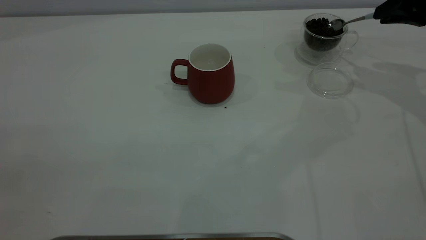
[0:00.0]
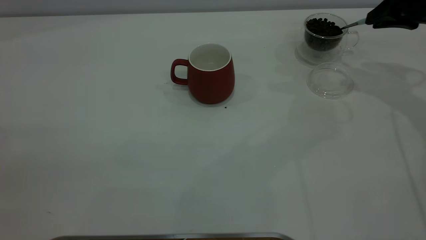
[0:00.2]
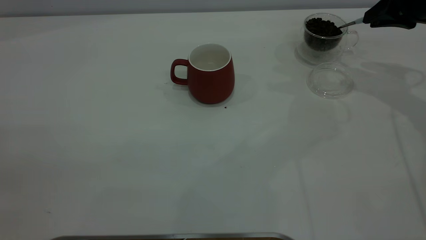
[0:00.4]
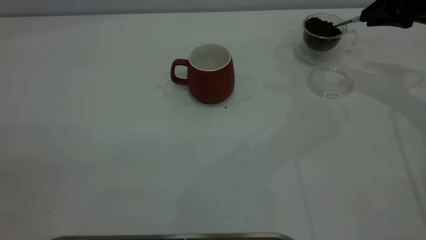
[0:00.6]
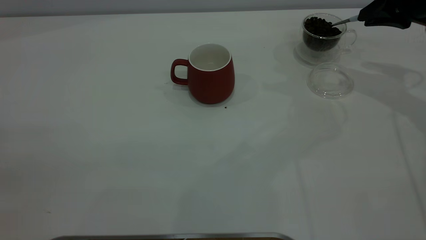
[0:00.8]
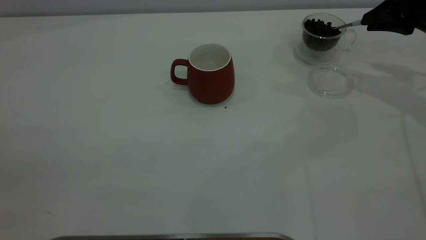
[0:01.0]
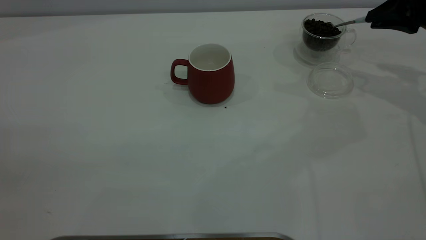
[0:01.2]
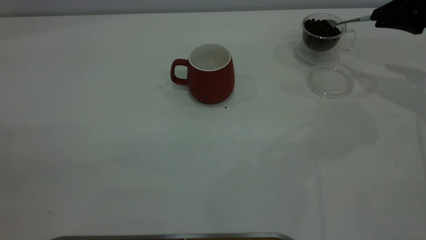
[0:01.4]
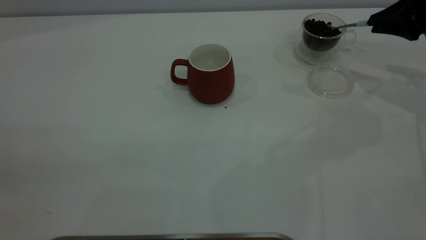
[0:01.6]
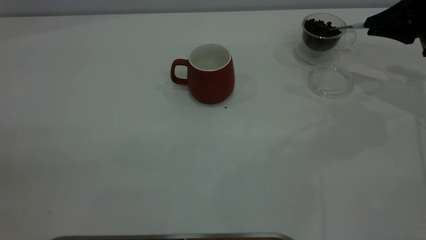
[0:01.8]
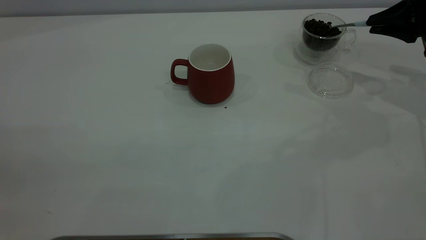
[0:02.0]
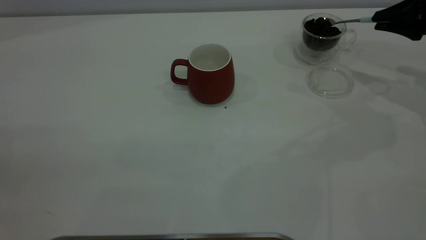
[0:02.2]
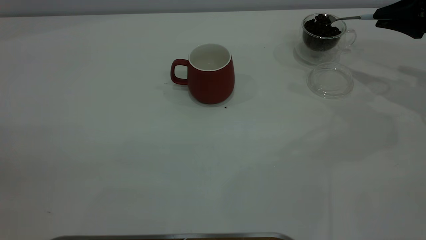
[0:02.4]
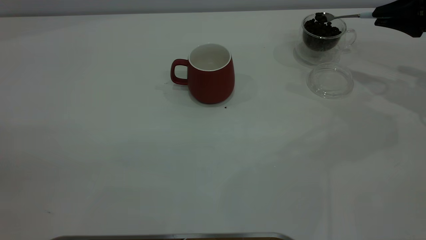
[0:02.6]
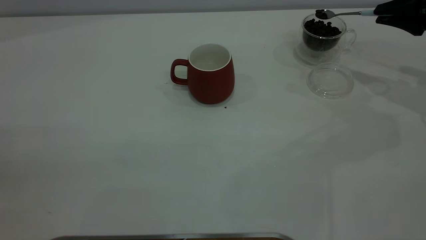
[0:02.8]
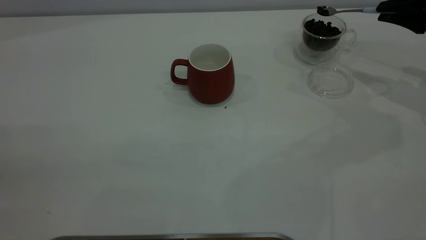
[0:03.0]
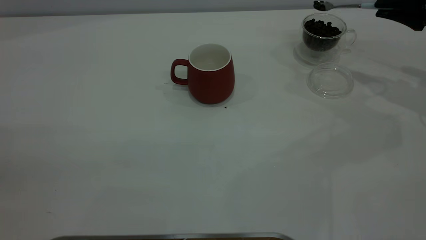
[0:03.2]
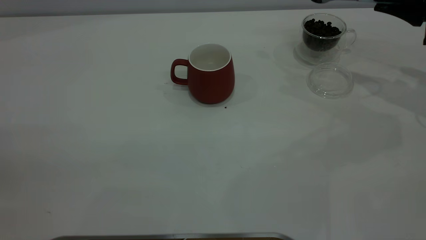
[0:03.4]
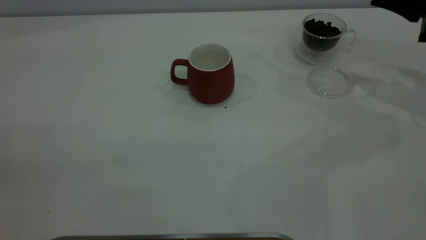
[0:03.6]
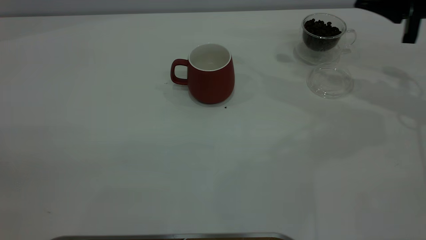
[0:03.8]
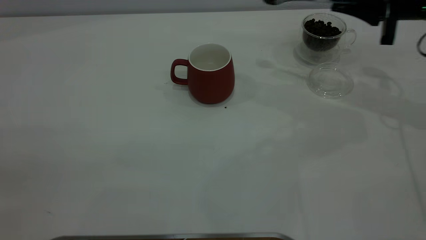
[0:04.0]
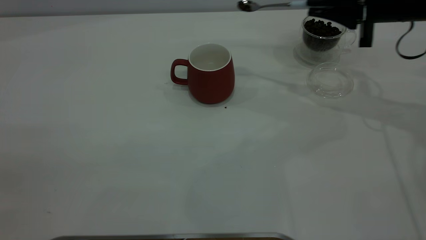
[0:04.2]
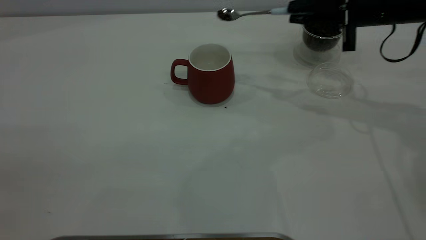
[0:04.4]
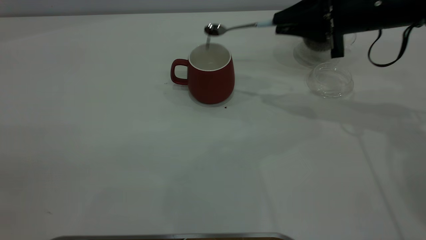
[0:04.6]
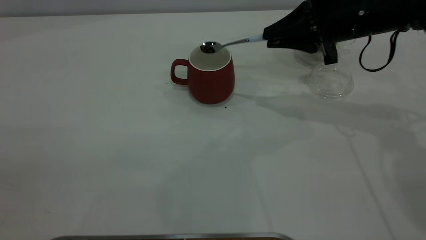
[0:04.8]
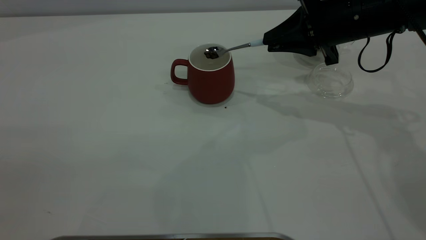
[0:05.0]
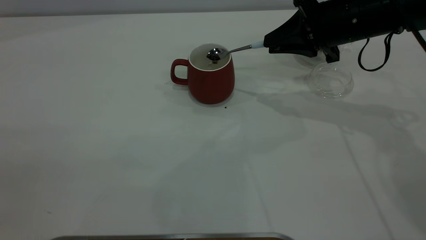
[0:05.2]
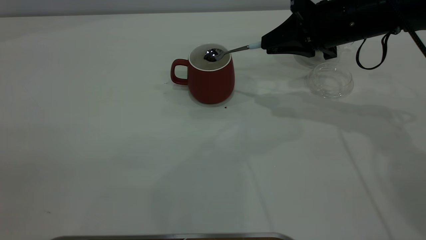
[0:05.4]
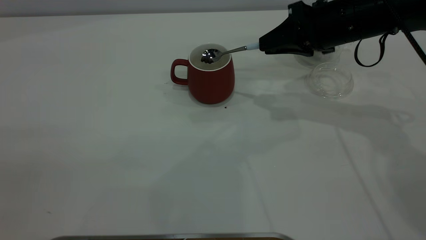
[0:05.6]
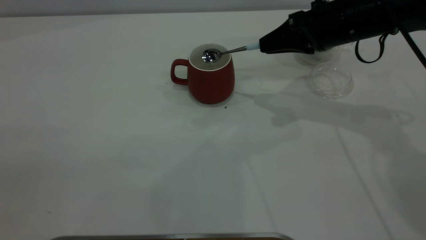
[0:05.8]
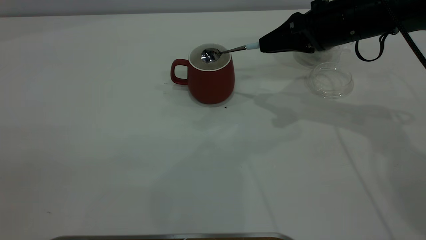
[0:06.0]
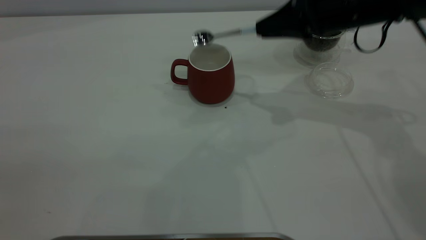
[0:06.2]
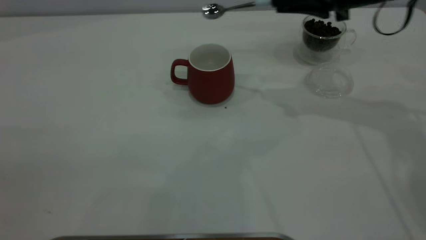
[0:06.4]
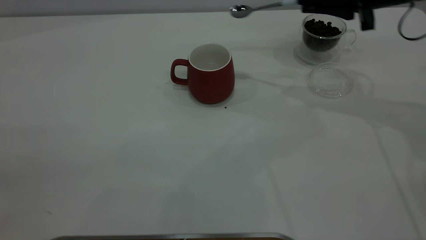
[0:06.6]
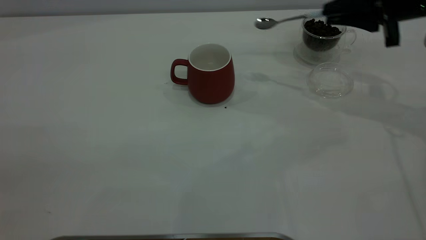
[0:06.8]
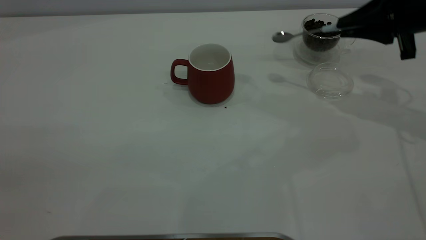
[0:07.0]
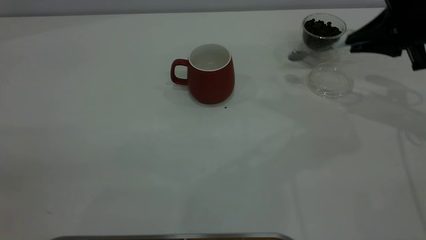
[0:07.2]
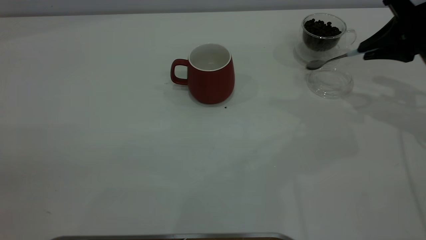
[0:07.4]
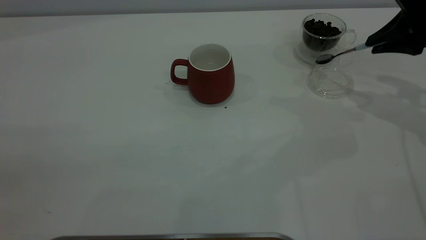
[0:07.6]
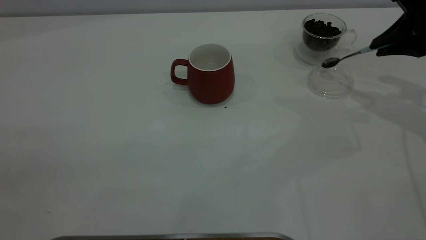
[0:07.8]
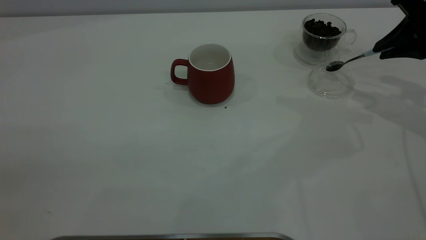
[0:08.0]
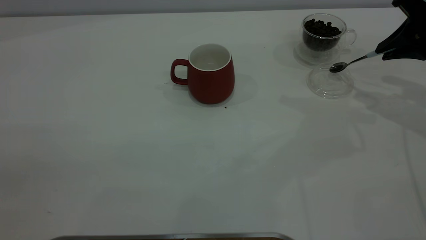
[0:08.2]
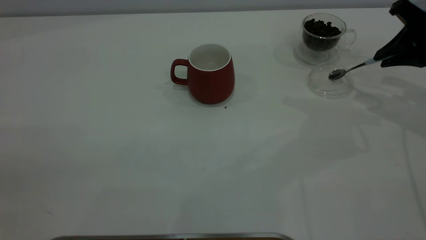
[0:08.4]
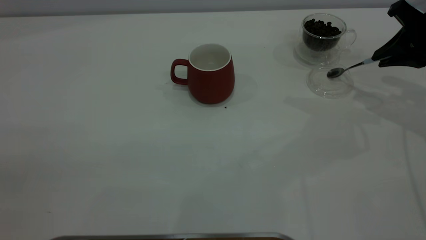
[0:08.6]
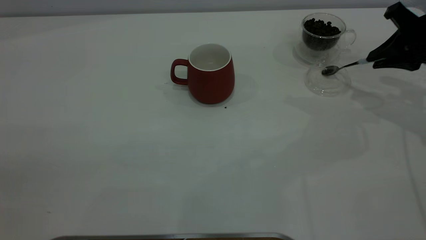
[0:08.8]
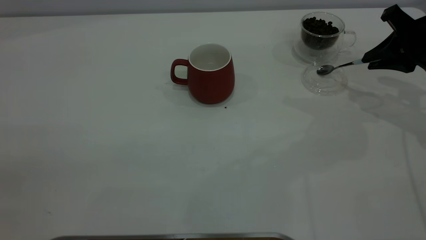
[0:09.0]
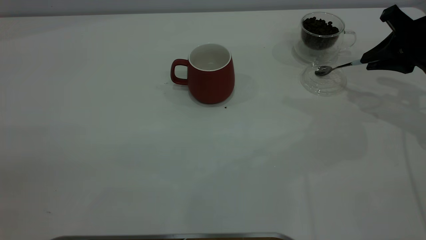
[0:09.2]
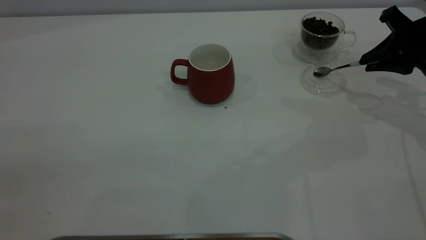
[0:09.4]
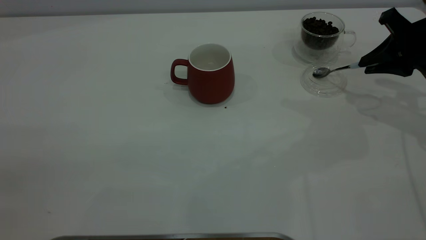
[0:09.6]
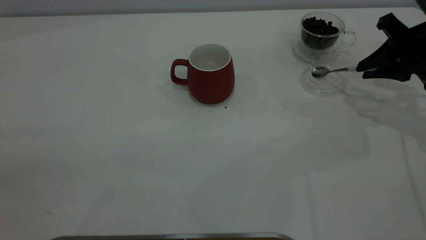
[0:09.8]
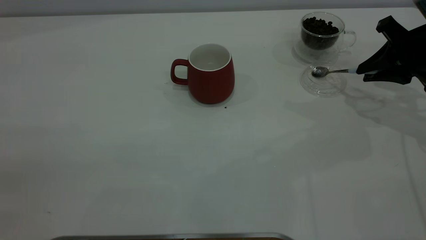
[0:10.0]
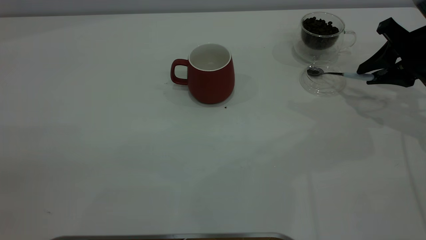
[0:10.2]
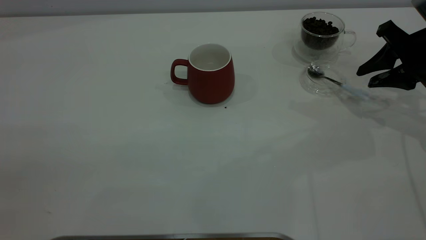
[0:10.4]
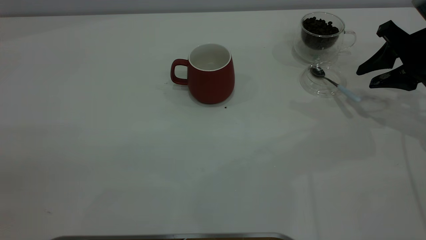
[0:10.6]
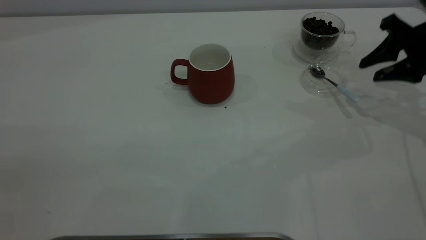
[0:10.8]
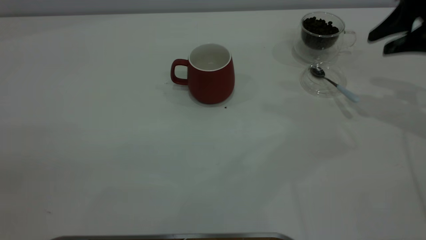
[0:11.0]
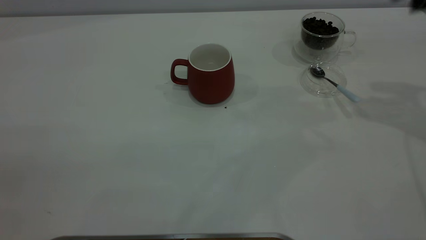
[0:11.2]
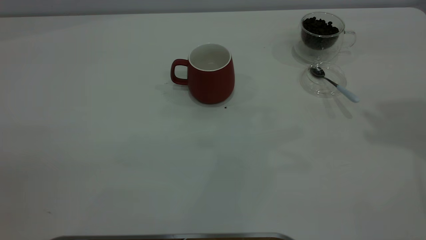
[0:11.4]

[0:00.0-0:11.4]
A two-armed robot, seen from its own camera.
Task of the whole recording: the left gripper place the red cup in the center of the table, the right gripper take the blue spoon from the cup lid and scoop out the coffee beans from the coffee cup and put them into the red cup, the right gripper put the spoon back into the cup lid.
Step, 0:00.0 to 0:06.0: Scoop a spoonful of beans into the cup.
Step, 0:06.2 to 0:10.6: Place the spoon back in its original place.
0:02.8 to 0:04.2: The right gripper heads to the left, covering roughly 10 cm.
0:04.2 to 0:05.6: The right gripper moves to the left, approximately 5 cm.
0:05.6 to 0:07.2: The right gripper travels to the right by roughly 10 cm.
0:07.2 to 0:10.0: The grippers stay close to where they were, moving slightly.
0:10.0 to 0:11.4: The right gripper travels upward by some 25 cm, and opens.

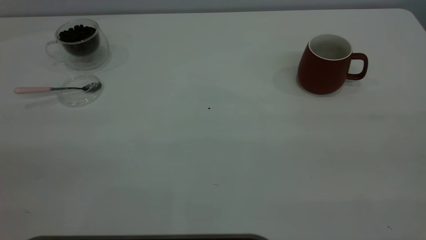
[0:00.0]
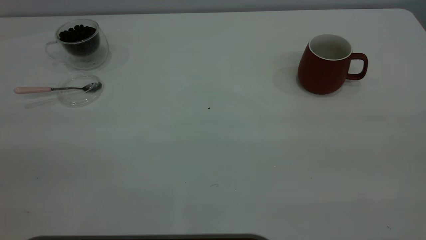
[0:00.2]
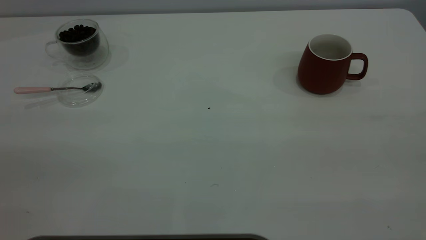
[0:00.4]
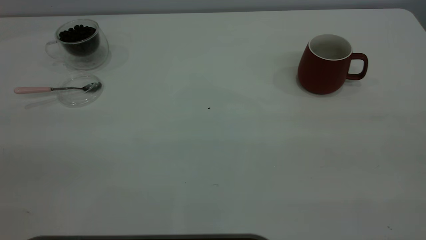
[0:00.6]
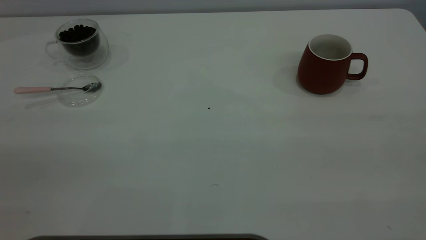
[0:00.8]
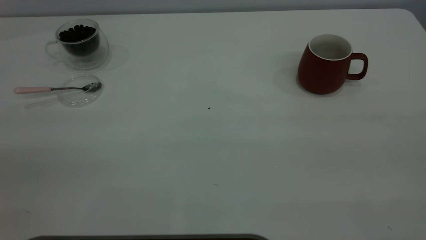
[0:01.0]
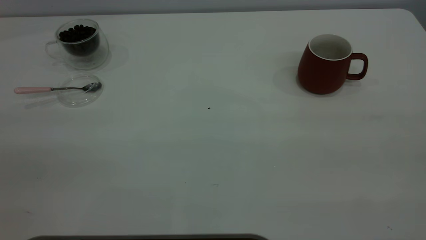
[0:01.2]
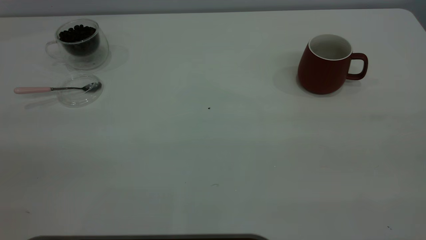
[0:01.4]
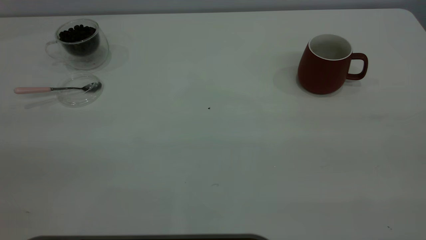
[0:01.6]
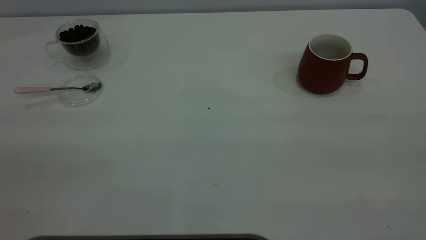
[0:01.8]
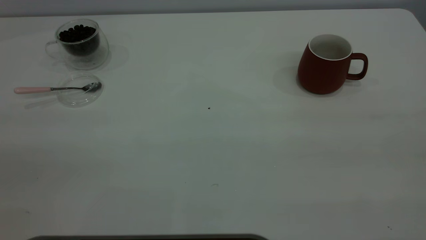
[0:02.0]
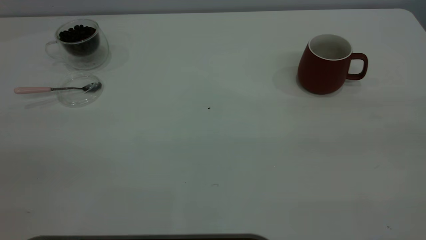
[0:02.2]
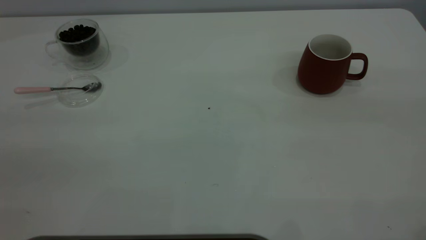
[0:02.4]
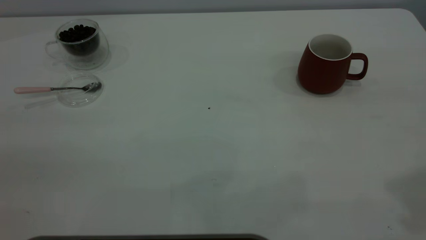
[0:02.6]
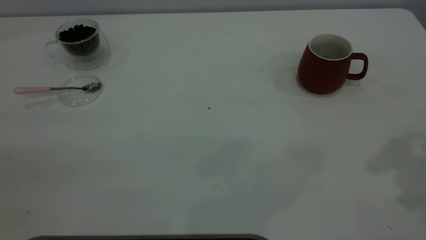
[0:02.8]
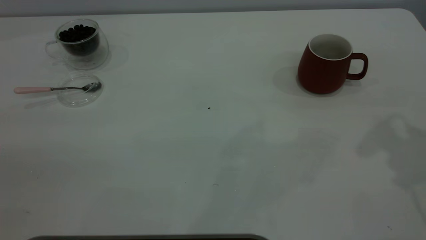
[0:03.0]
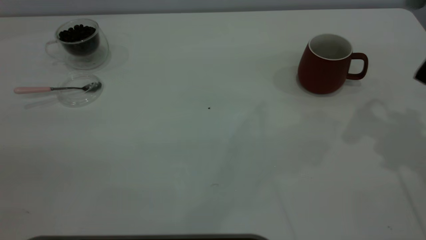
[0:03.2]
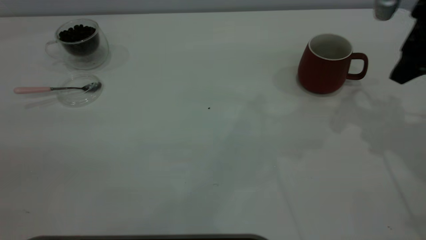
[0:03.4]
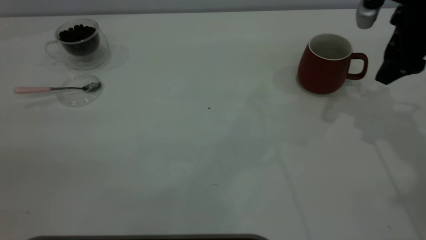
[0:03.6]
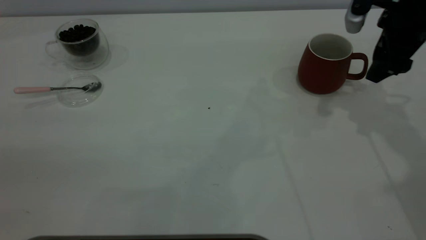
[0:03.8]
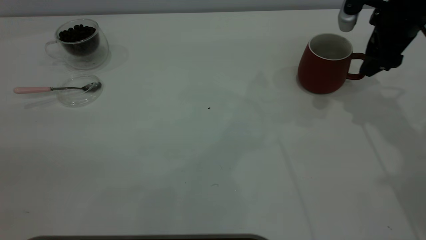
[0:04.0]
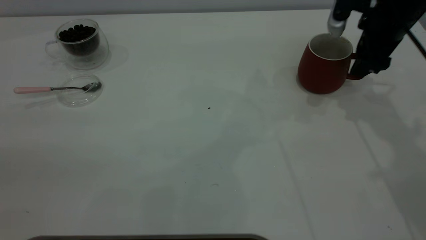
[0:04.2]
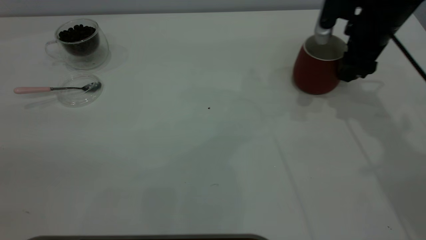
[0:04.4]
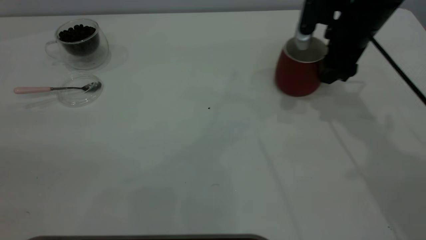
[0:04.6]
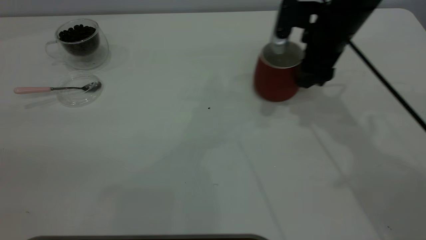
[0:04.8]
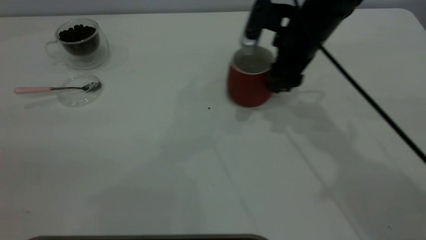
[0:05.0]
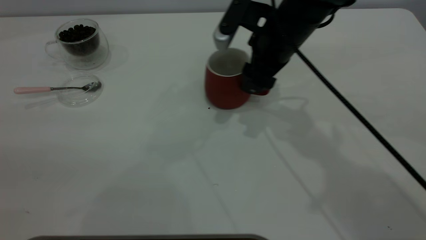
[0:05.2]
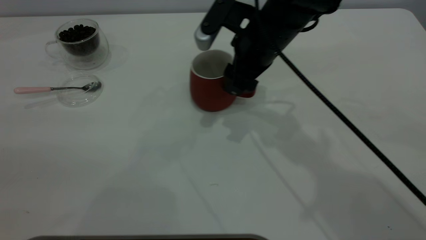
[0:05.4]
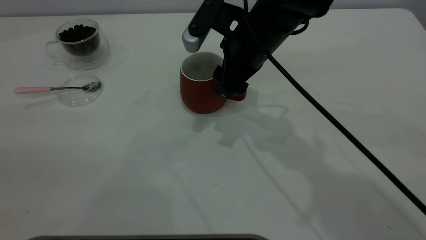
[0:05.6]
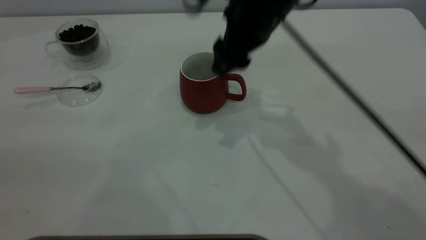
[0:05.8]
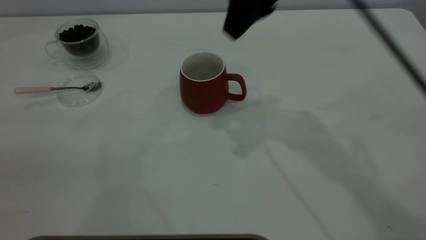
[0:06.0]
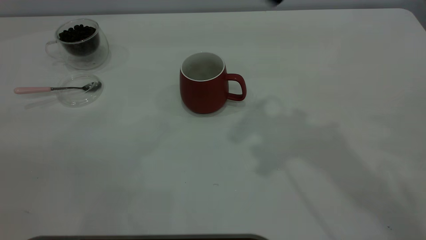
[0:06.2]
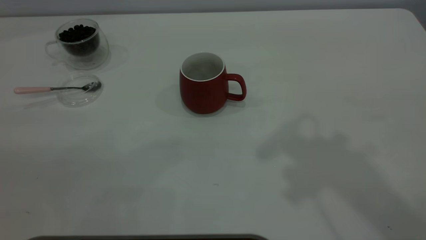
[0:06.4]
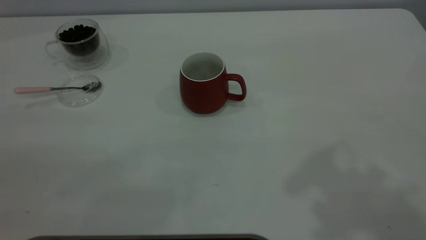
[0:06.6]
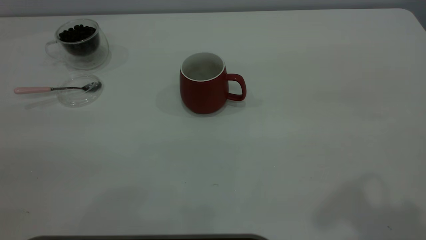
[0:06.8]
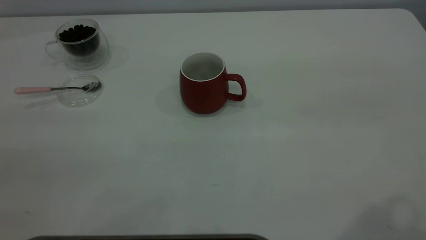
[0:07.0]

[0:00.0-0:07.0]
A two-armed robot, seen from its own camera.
Task of the whole recording: the right gripper place the red cup in the center of the table, the left gripper take the pink spoon from the cup lid and scoop out the coffee beans from the coffee cup and put them into the red cup, the left gripper put the spoon back into the cup lid.
Step, 0:00.0 to 0:05.8: Move the cup to the center of view.
0:00.0 to 0:01.4: Both grippers stay put.
0:02.8 to 0:04.2: The right gripper goes approximately 25 cm forward and downward.
0:04.2 to 0:05.6: The right gripper moves to the left, roughly 20 cm.
0:05.6 to 0:07.0: The right gripper is displaced upward, backward and to the right by approximately 40 cm.
